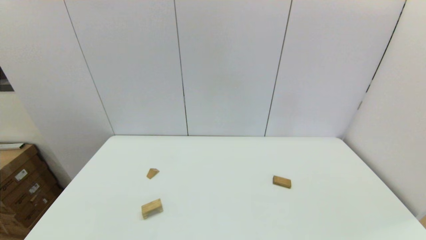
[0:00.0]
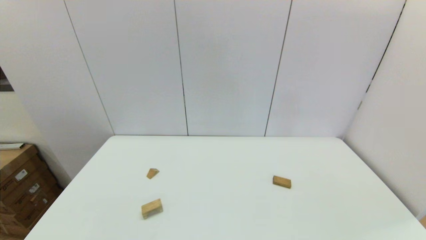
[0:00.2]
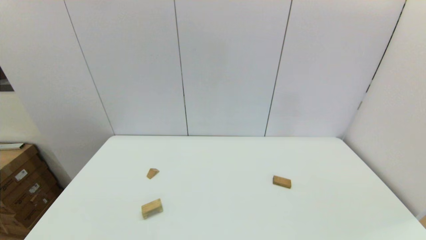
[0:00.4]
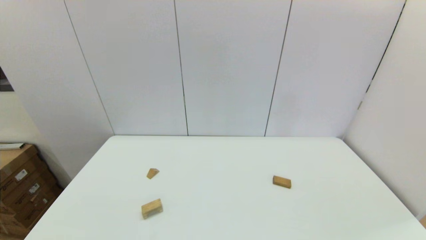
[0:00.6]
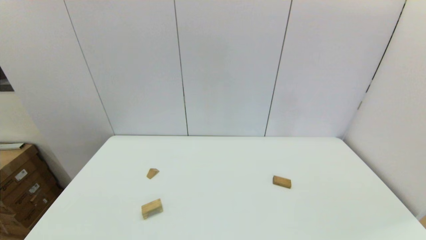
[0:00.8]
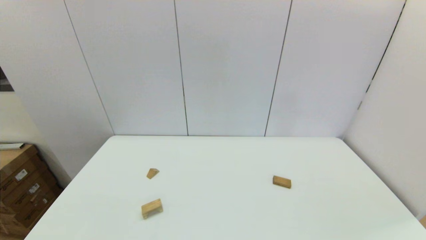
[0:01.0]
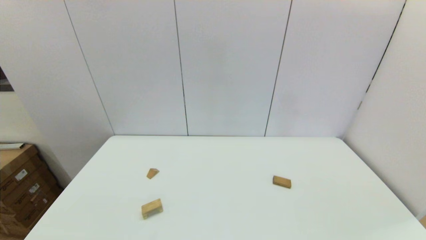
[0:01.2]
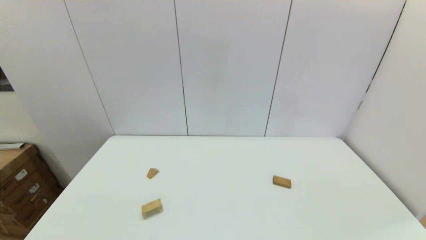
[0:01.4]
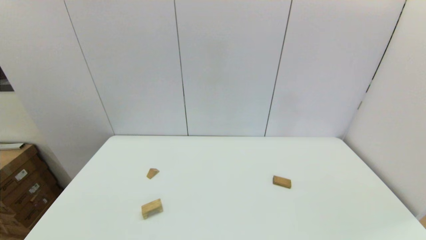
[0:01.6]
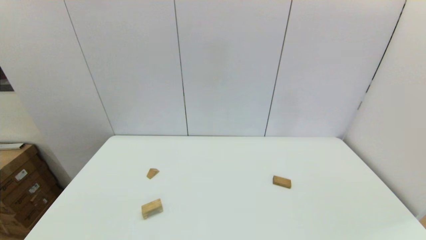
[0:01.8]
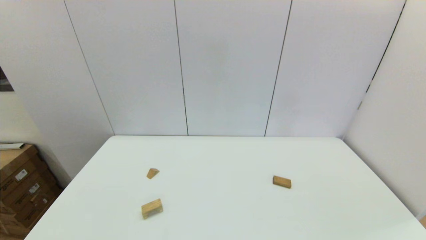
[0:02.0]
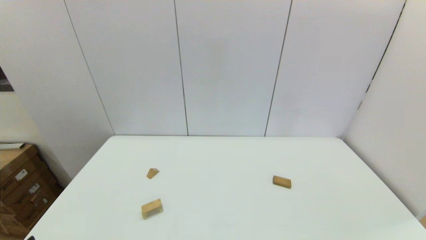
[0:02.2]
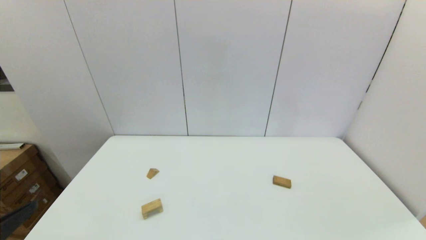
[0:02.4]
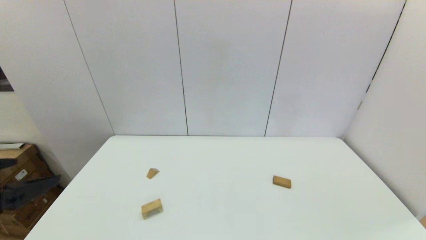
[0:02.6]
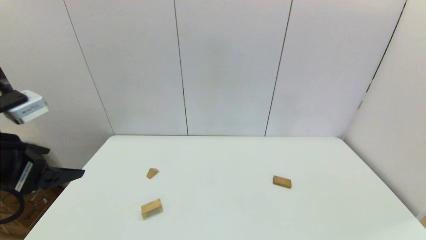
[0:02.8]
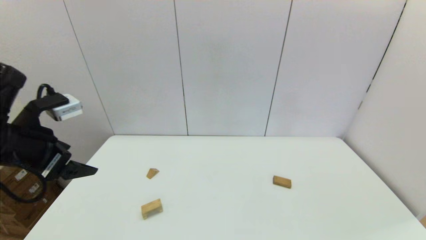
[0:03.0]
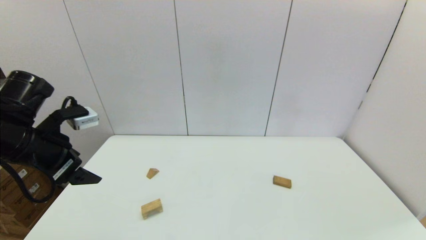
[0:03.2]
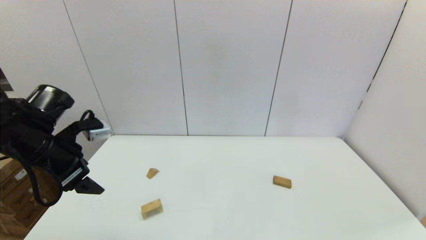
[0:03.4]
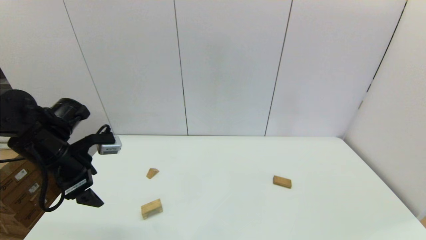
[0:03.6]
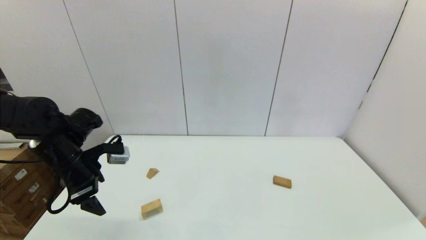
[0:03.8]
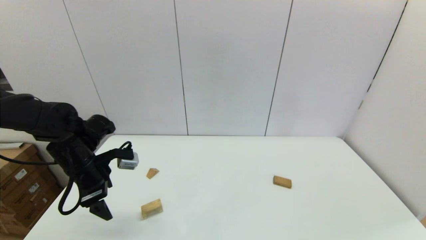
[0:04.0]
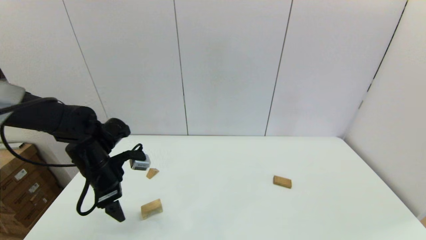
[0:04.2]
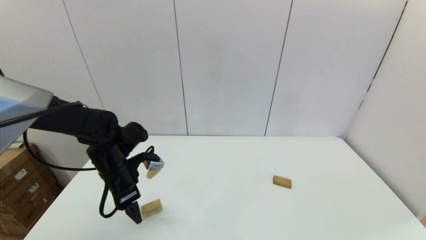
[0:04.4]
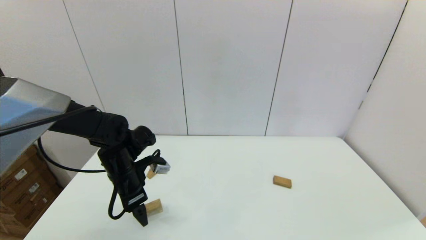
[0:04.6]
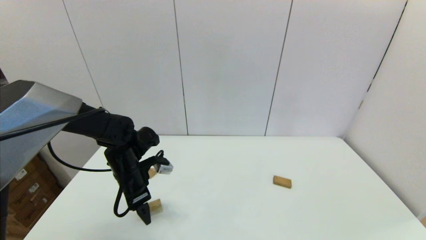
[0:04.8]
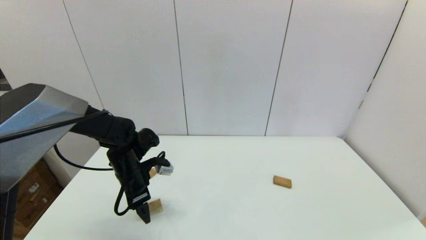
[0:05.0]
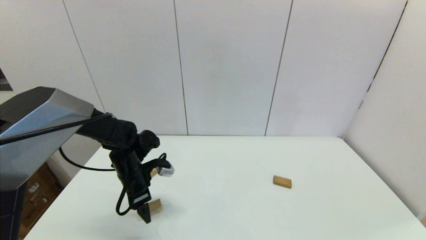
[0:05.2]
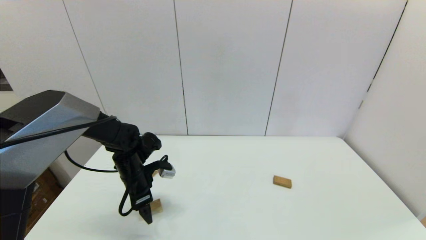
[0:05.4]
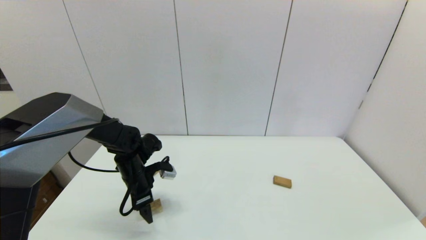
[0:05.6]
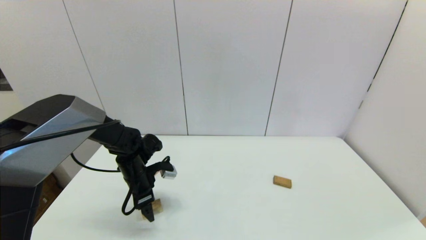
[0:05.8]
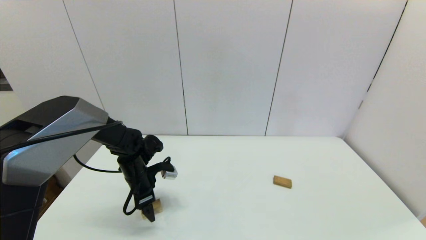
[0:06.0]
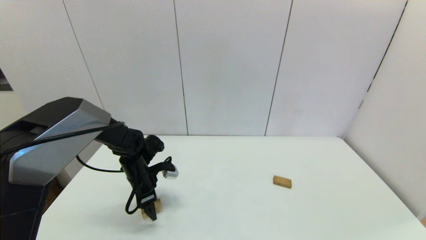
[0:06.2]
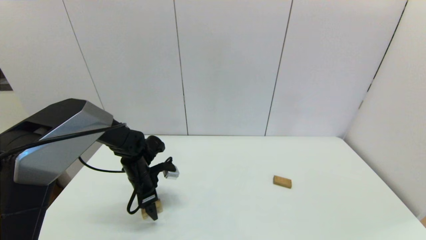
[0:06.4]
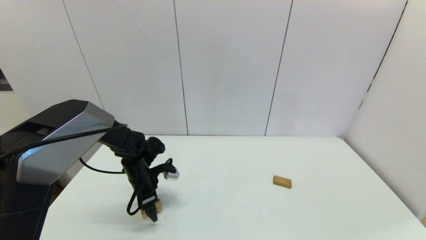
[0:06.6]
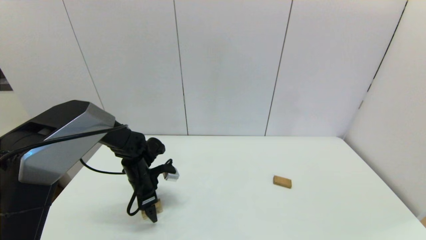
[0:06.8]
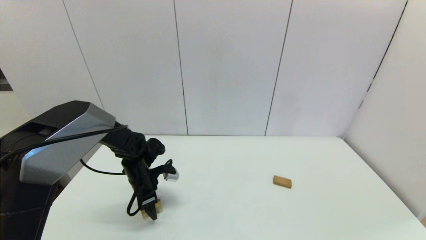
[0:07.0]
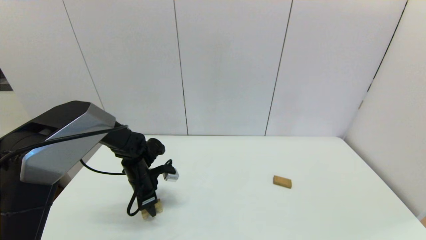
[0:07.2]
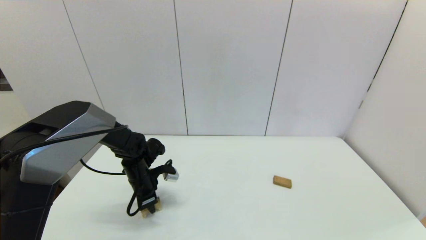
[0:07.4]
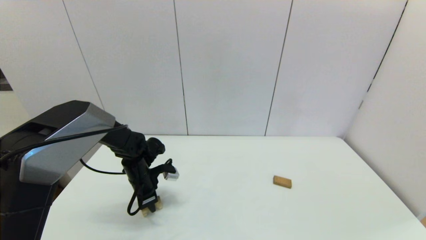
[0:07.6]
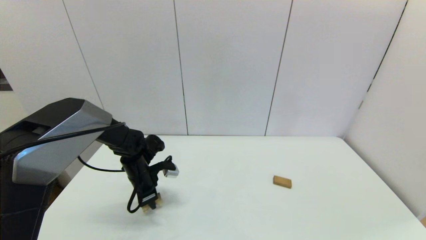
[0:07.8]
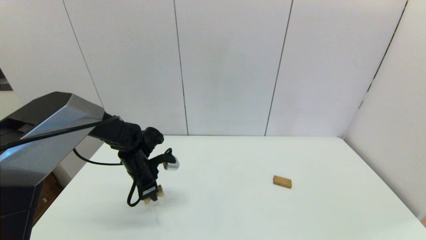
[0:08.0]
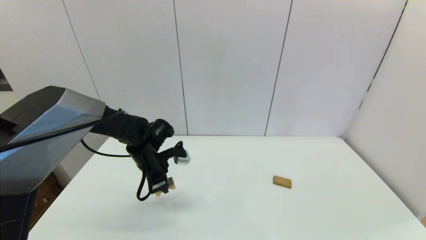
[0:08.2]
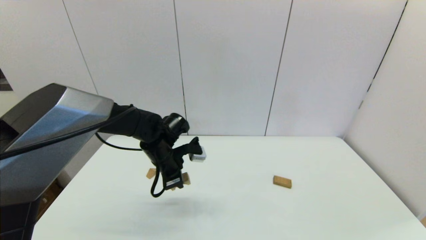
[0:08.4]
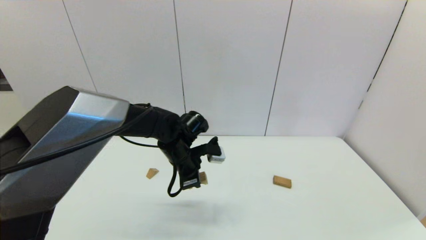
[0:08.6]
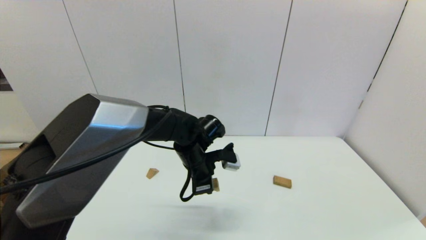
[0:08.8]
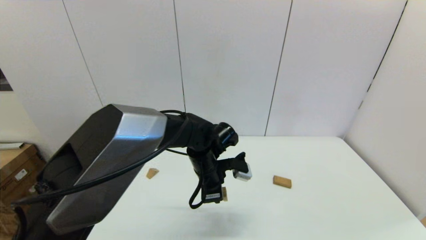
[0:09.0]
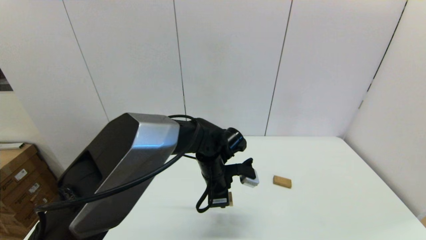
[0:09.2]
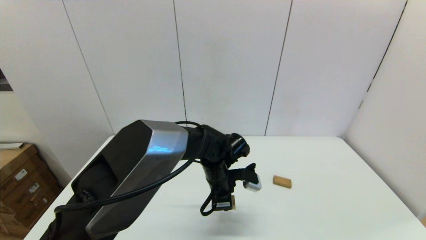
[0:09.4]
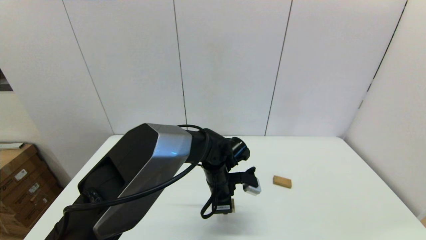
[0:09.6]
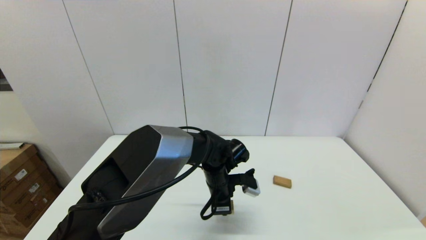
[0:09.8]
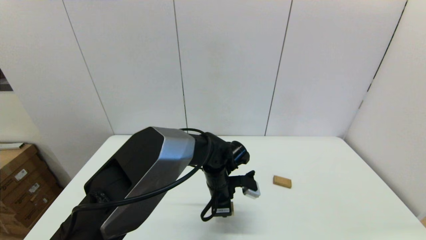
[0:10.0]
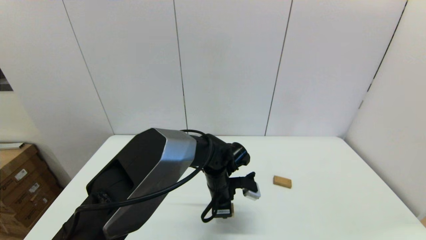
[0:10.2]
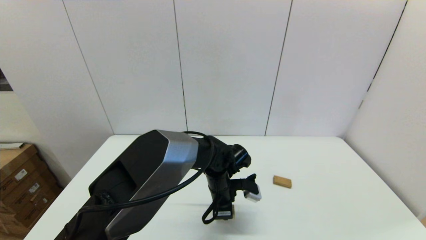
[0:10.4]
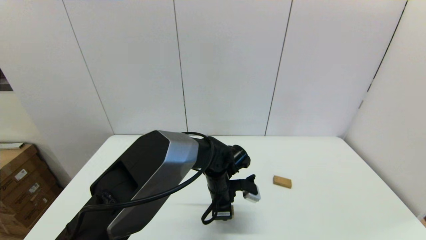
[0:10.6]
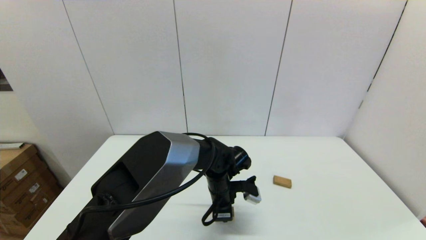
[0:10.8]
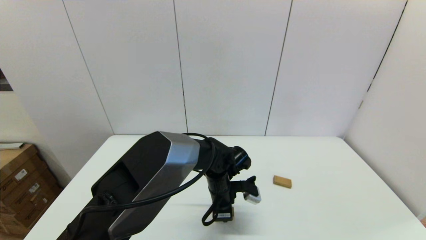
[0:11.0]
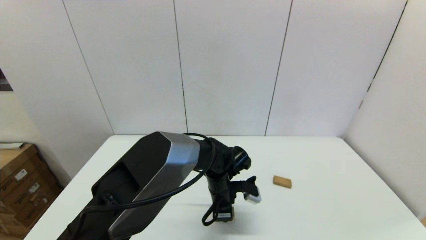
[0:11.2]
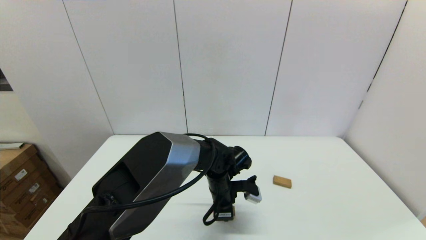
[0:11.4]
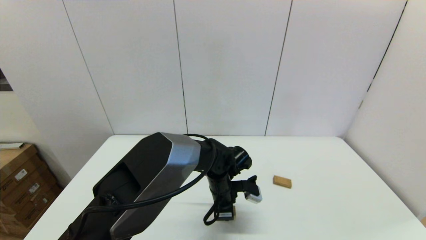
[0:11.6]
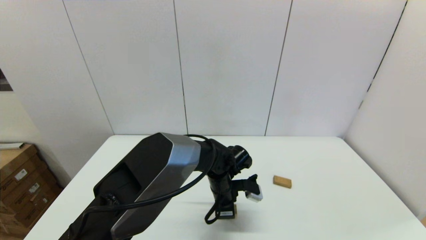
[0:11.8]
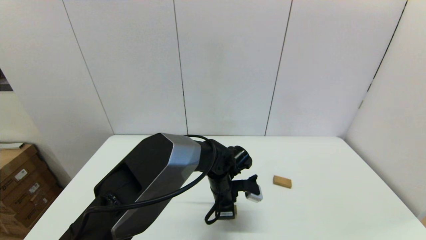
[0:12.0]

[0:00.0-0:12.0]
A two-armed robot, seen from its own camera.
Task of the whole recording: place the arched building blocks in the center of the table, set up the rectangular building blocks, and then set up the triangular building blocks.
Step, 0:02.4 to 0:07.2: Grasp the arch-shaped block with the left gripper.
0:00.0 to 0:01.6: The two grippers keep their place.
0:01.6 to 0:03.0: The left gripper travels forward and upward by approximately 30 cm.
0:03.0 to 0:04.4: The left gripper moves downward, forward and to the right, some 20 cm.
0:04.4 to 0:06.0: The left gripper is displaced downward by approximately 10 cm.
0:06.0 to 0:07.6: The left gripper closes its fingers.
0:07.6 to 0:09.0: The left gripper shifts some 20 cm to the right.
0:09.0 to 0:10.4: The left gripper moves downward, about 5 cm.
0:10.4 to 0:12.0: Both grippers stay about where they are.

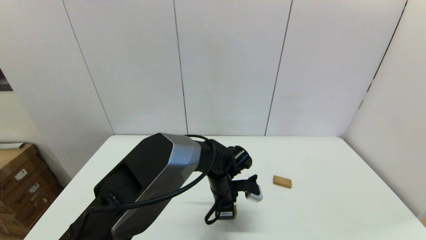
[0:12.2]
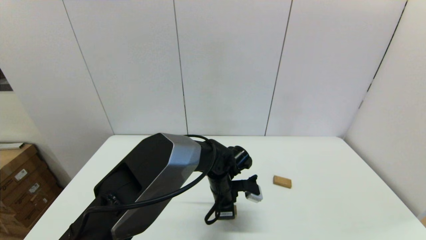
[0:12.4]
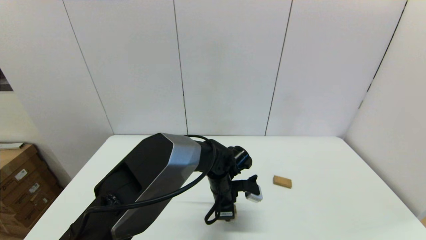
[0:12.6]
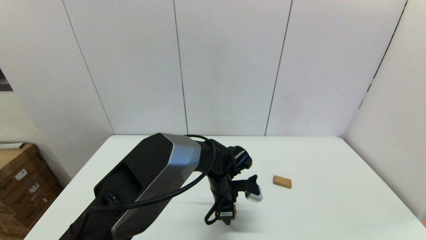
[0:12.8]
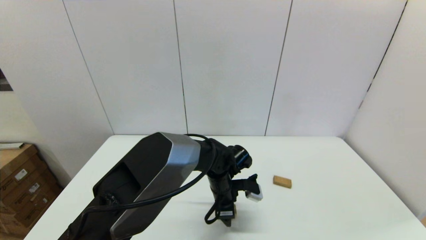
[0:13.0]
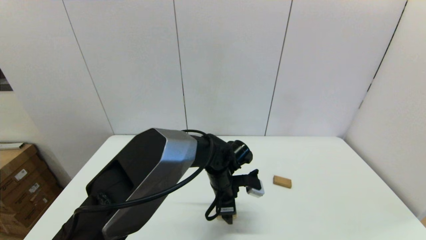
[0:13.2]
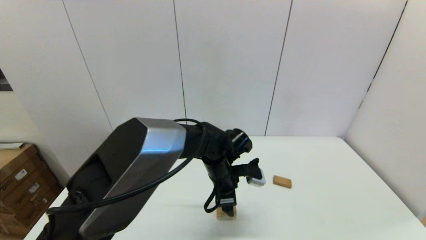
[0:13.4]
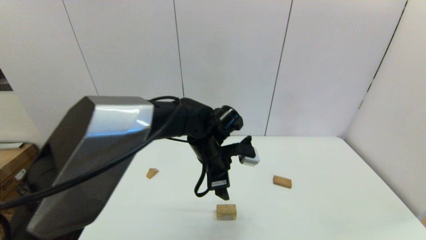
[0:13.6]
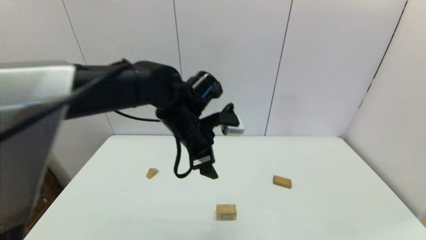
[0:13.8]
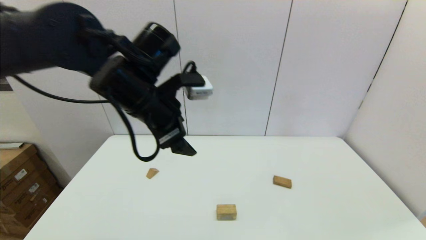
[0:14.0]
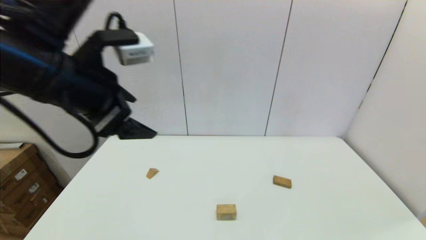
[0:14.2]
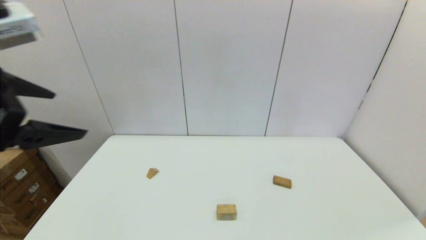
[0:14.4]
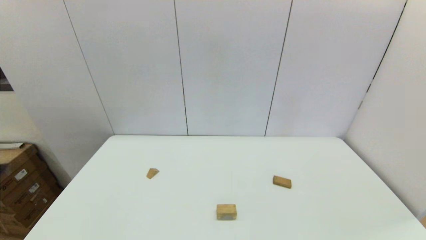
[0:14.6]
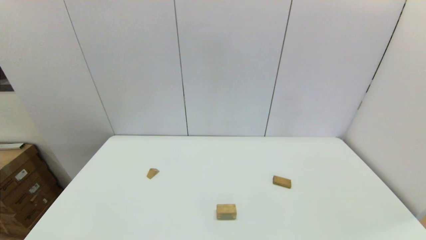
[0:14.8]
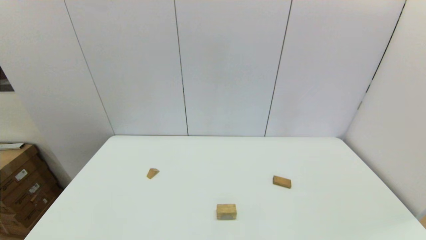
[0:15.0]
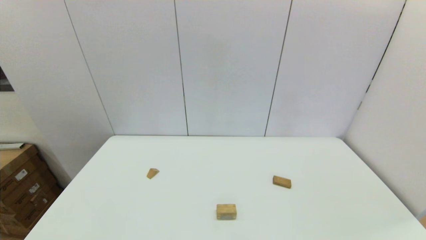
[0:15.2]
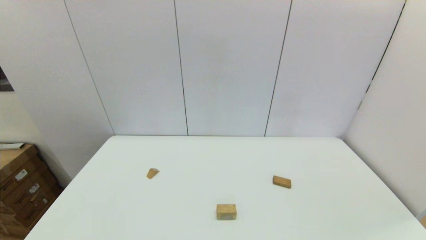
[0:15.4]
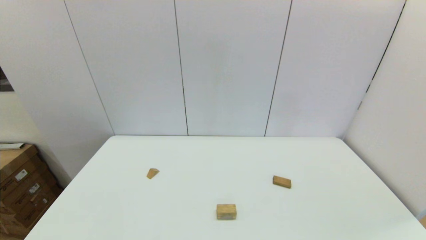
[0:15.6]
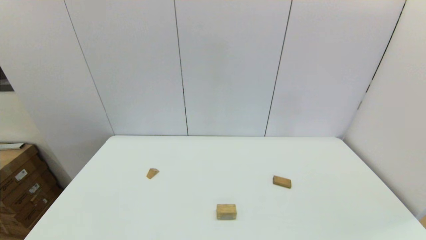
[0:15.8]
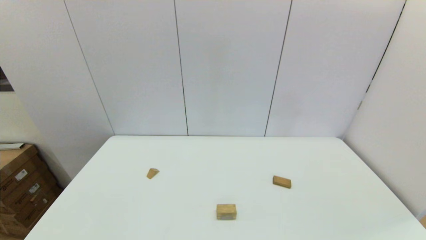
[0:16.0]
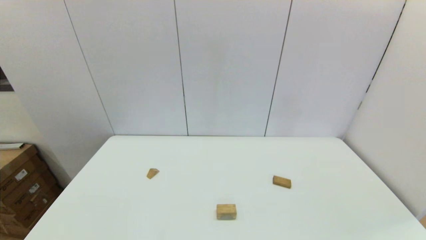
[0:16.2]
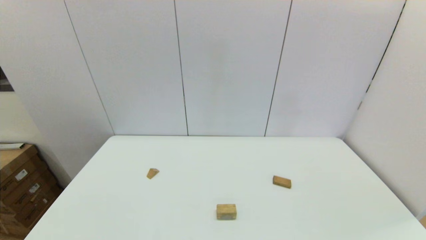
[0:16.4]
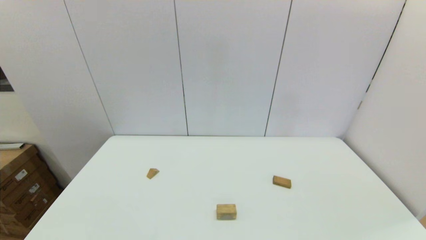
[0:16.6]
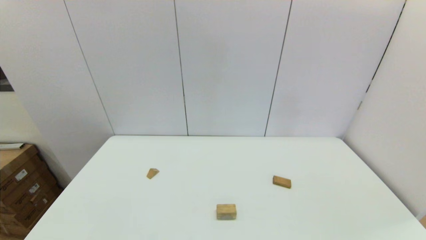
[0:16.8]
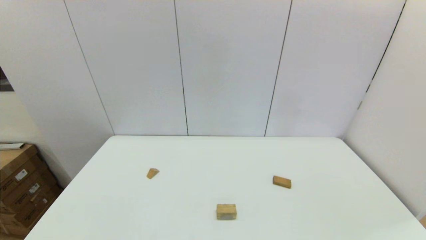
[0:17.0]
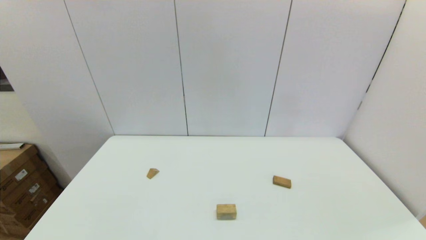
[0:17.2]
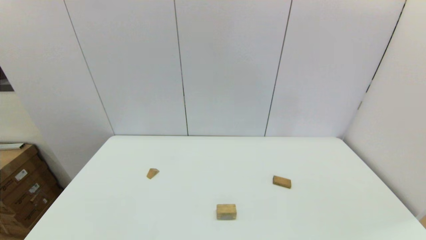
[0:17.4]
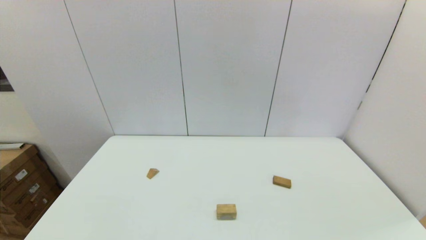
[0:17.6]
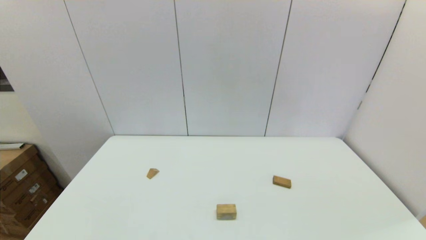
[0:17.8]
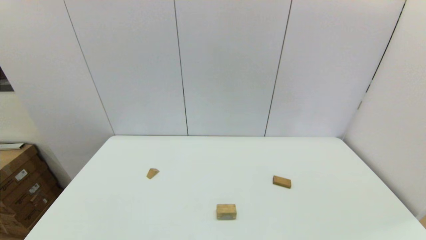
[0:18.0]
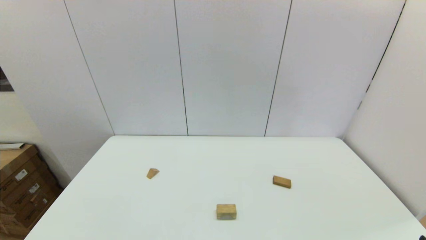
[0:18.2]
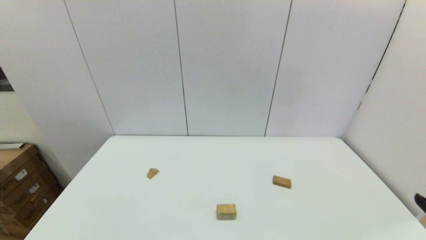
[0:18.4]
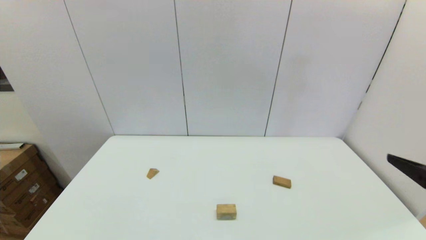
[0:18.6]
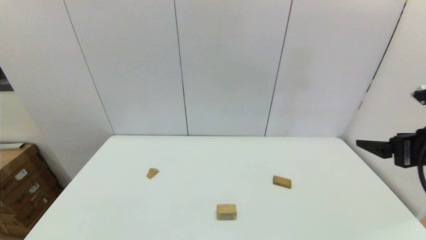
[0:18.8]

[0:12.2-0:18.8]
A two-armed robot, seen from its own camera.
Task of the whole recording: place the arched building blocks in the center of the table, set up the rectangular building blocks, and then set up the triangular building blocks.
0:12.2 to 0:13.8: The left gripper heads upward, covering about 20 cm, and opens its fingers.
0:13.8 to 0:15.4: The left gripper shifts approximately 40 cm backward and to the left.
0:17.2 to 0:18.8: The right gripper moves forward and upward, about 25 cm.
